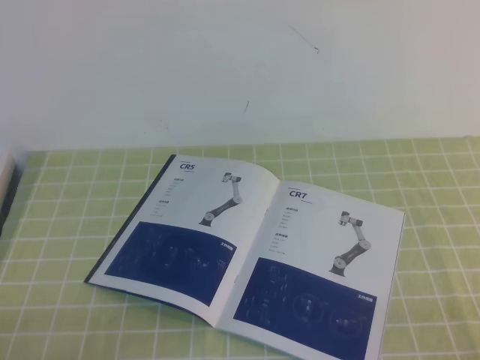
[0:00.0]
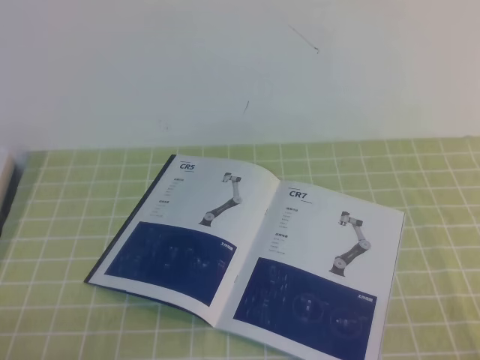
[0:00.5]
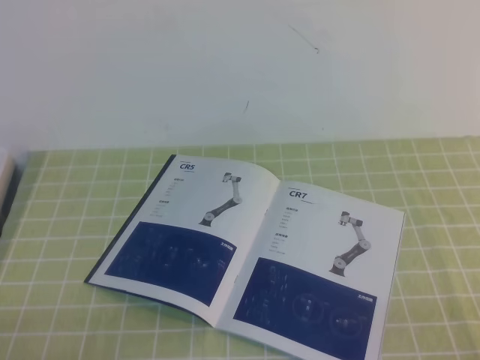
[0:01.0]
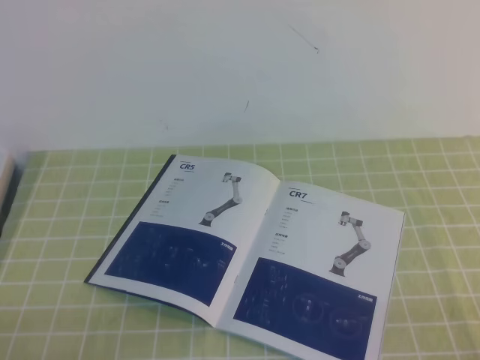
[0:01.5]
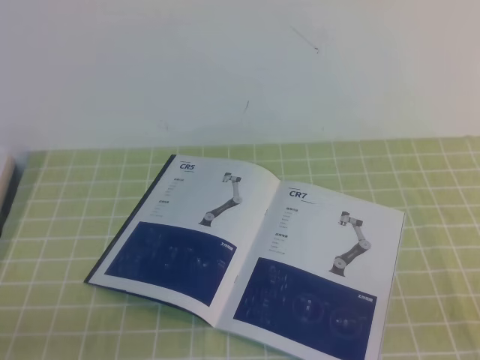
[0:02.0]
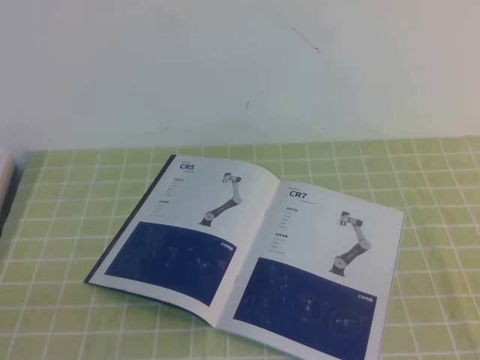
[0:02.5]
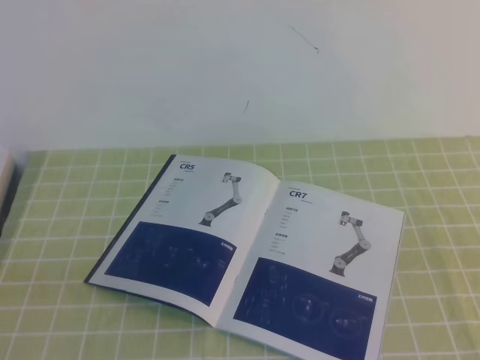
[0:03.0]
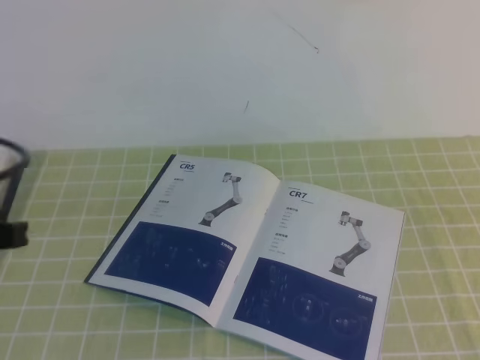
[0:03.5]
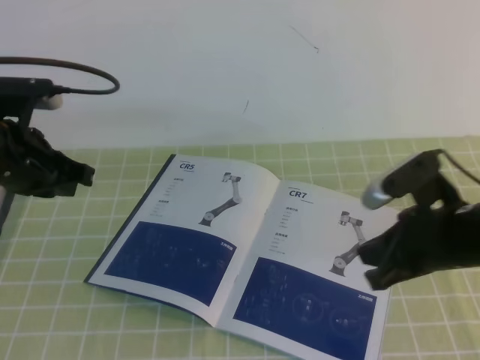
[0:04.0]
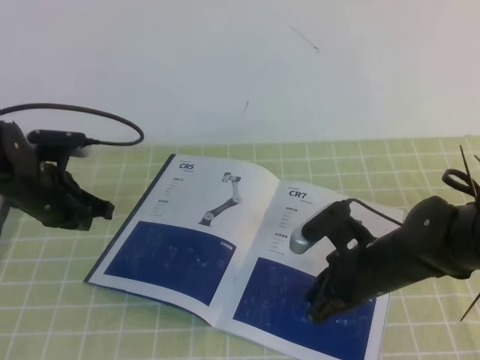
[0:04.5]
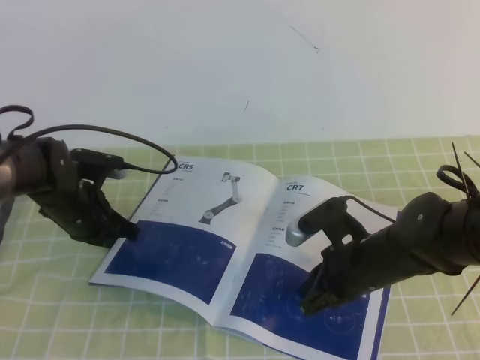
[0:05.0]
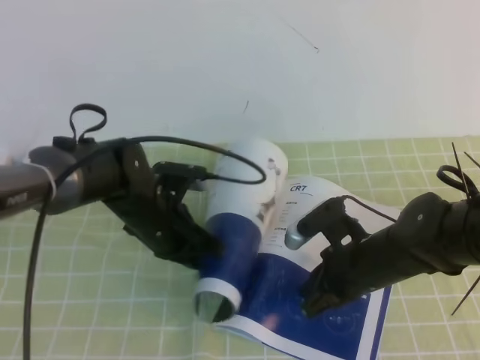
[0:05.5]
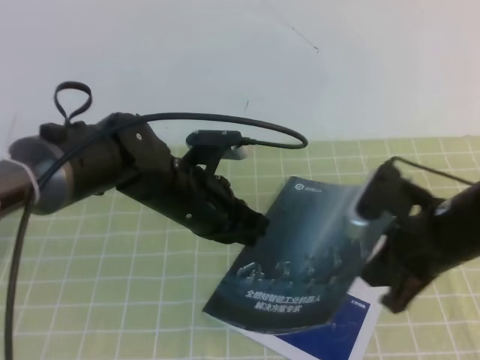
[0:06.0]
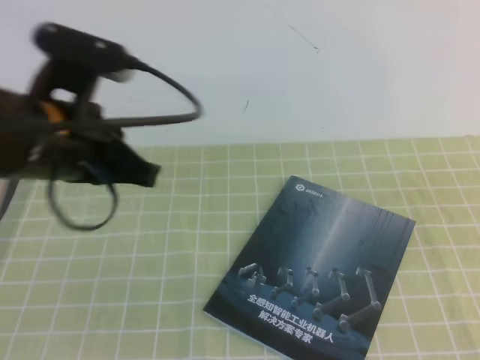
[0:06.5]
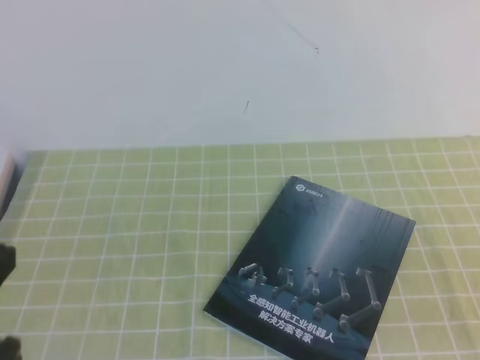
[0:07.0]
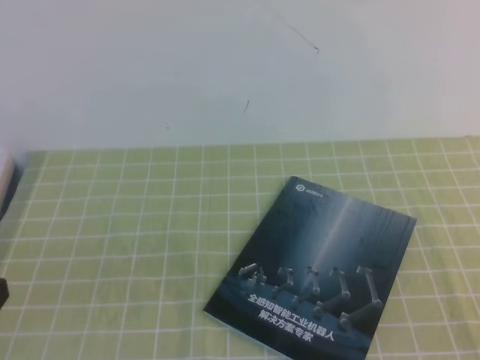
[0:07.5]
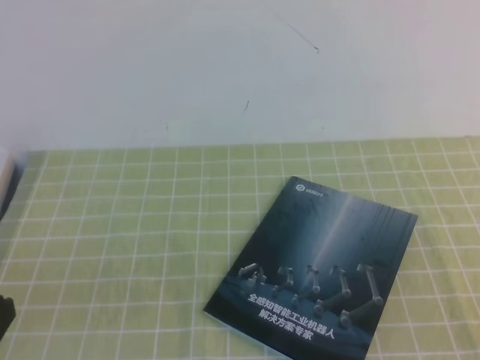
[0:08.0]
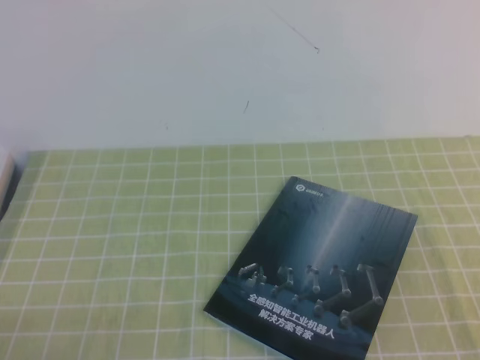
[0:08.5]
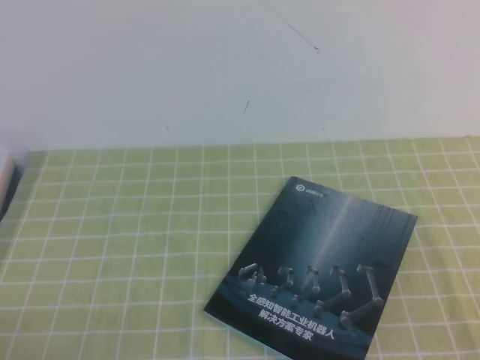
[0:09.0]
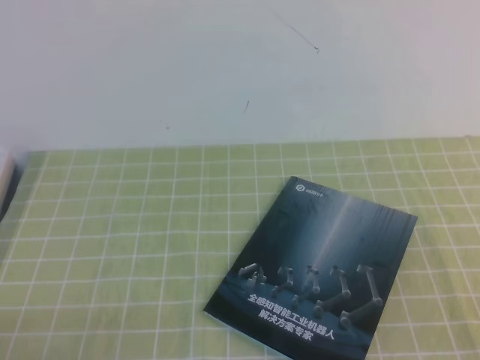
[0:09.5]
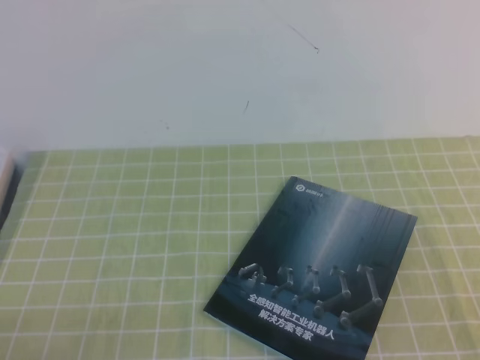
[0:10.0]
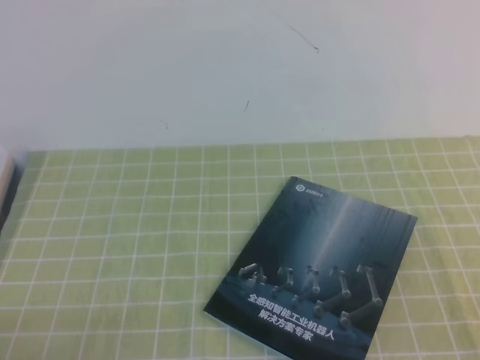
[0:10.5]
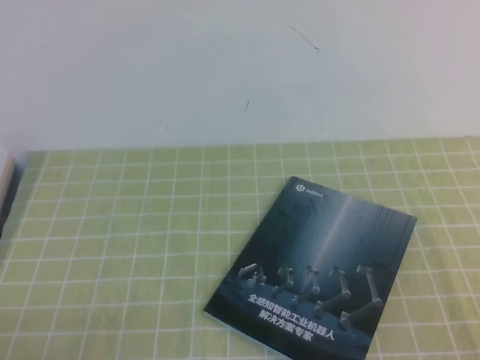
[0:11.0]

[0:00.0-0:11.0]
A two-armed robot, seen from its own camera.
Task of the whole recording: on the green tablecloth, hold the book with one hand and close it with the other.
0:02.0 to 0:03.5: The left gripper moves upward and forward, roughly 20 cm.
0:03.5 to 0:05.5: The left gripper goes some 30 cm forward, downward and to the right. The right gripper moves downward, to the left and forward, some 30 cm.
0:05.5 to 0:07.5: The right gripper is displaced backward, to the right and upward by about 30 cm. Meanwhile the left gripper travels backward, to the left and upward by roughly 35 cm.
0:09.0 to 0:11.0: Neither gripper changes place.

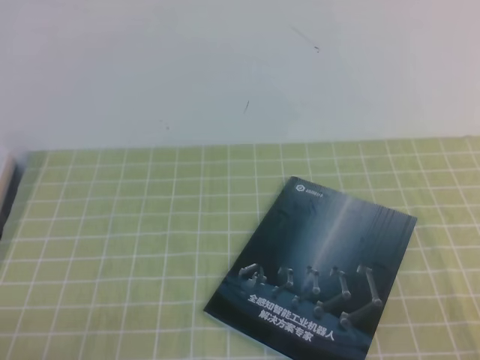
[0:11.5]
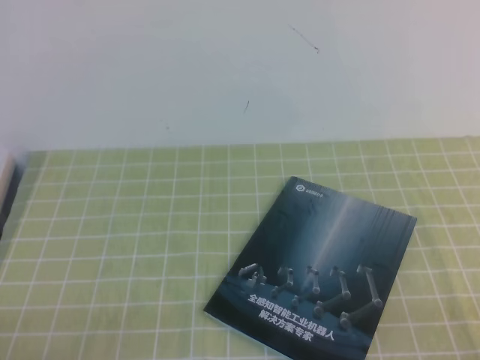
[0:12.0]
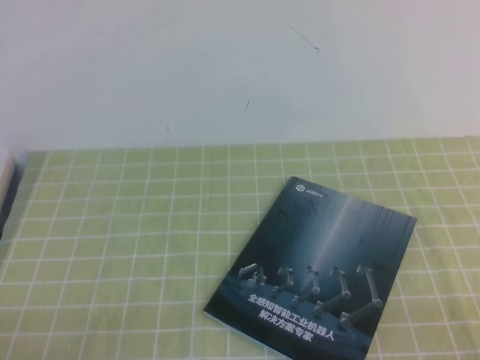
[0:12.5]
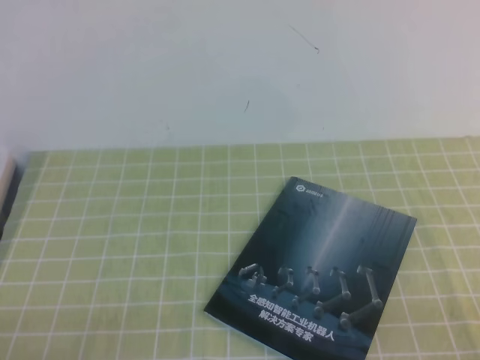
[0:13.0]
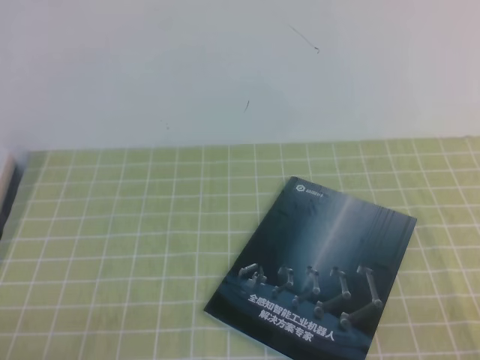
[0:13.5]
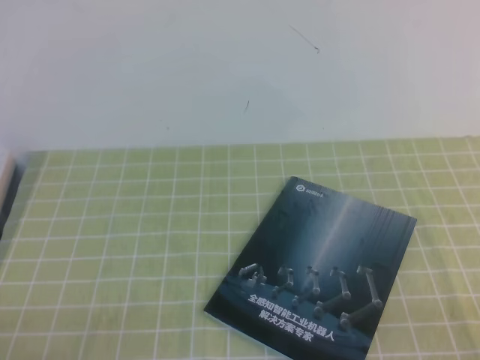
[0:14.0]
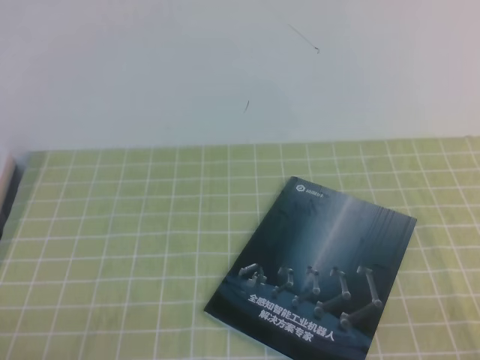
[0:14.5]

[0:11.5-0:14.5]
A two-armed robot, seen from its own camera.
Task of the whole recording: on the green tablecloth, hold the book with one hand and close it with the other.
0:13.0 to 0:14.5: Both grippers stay put.
